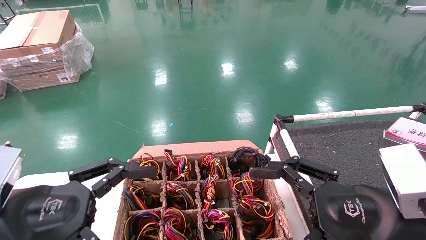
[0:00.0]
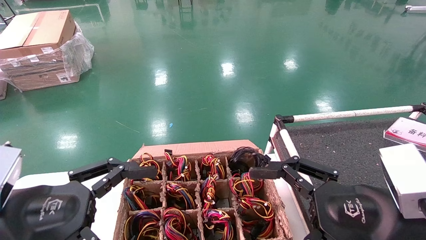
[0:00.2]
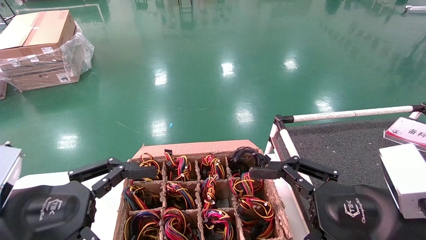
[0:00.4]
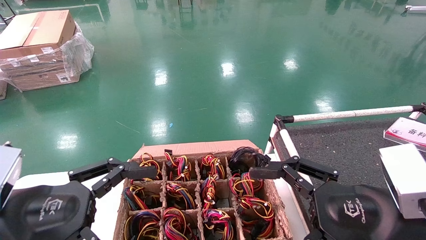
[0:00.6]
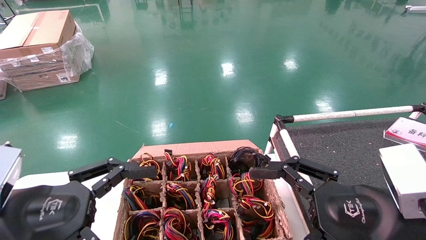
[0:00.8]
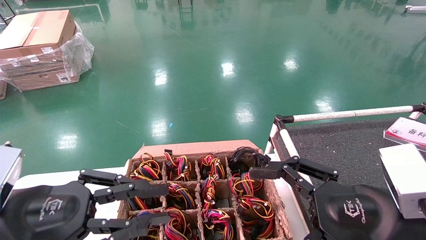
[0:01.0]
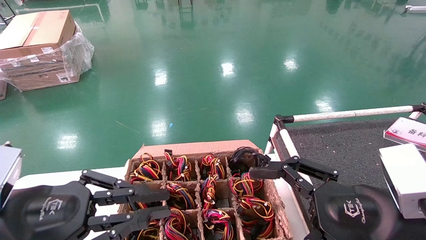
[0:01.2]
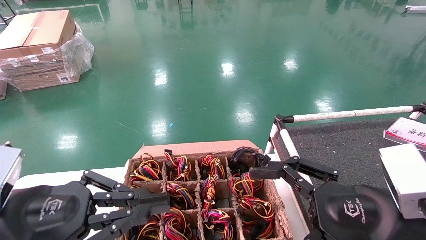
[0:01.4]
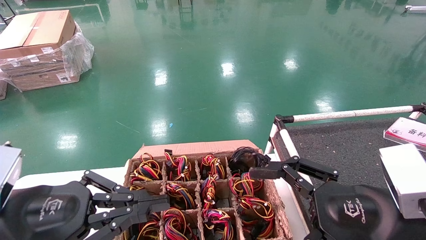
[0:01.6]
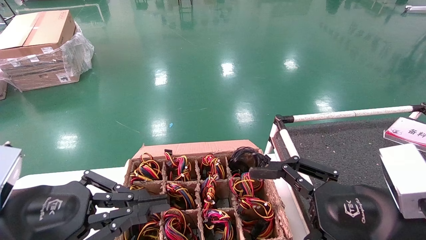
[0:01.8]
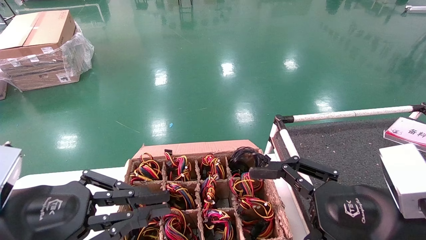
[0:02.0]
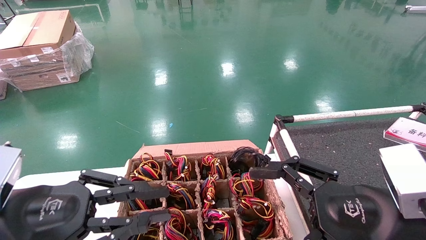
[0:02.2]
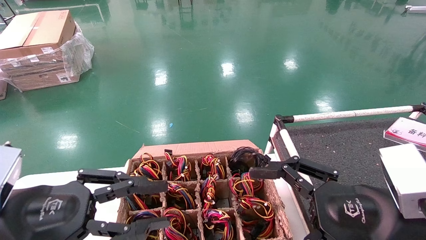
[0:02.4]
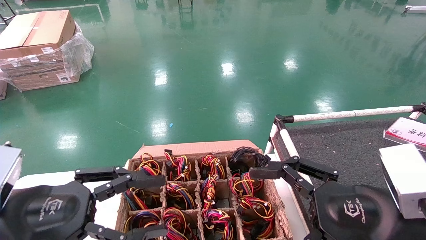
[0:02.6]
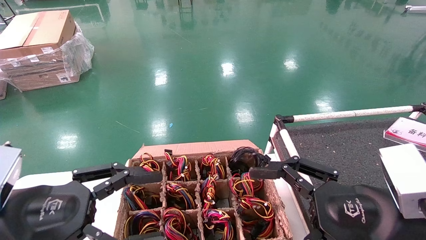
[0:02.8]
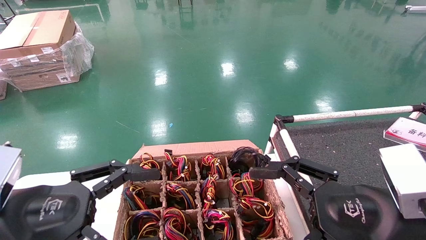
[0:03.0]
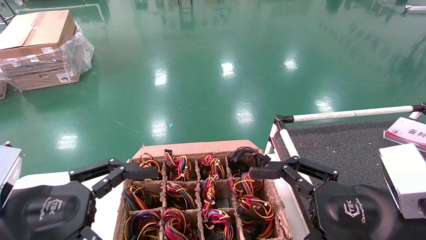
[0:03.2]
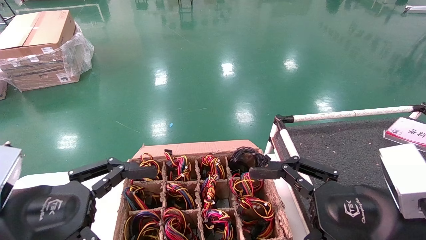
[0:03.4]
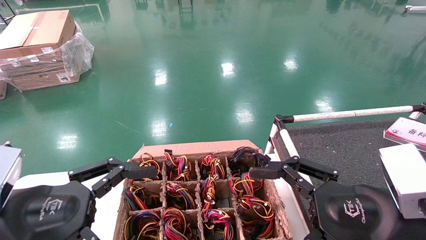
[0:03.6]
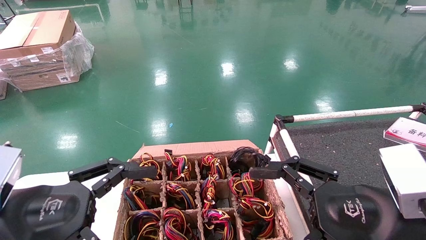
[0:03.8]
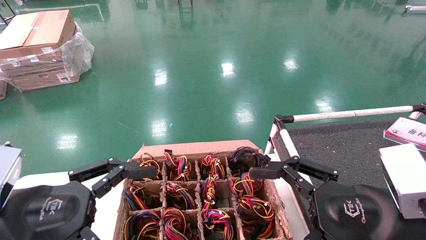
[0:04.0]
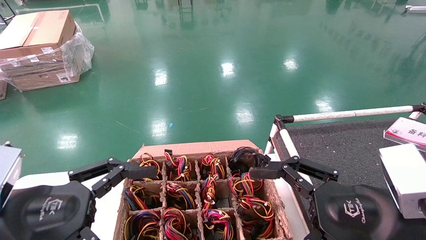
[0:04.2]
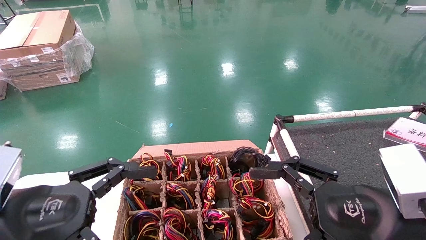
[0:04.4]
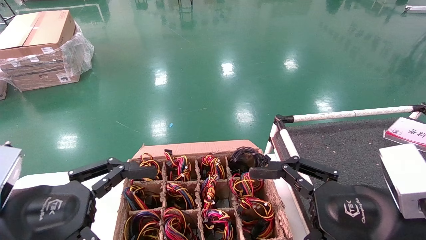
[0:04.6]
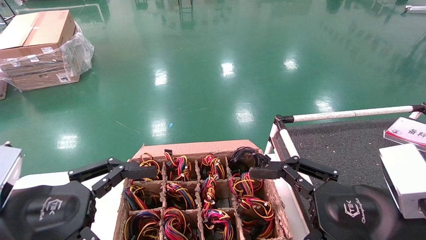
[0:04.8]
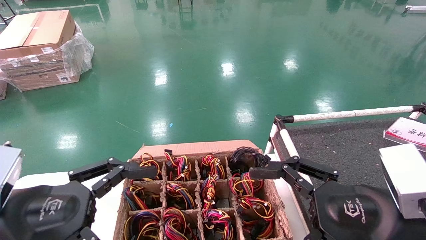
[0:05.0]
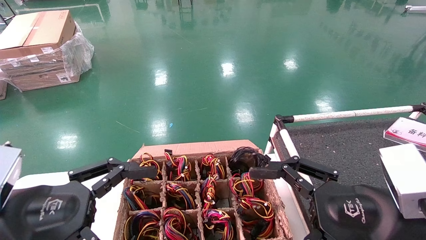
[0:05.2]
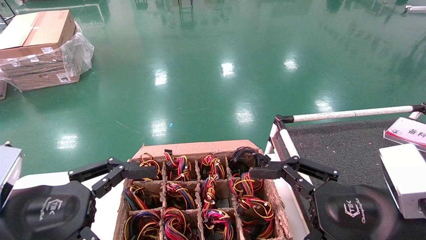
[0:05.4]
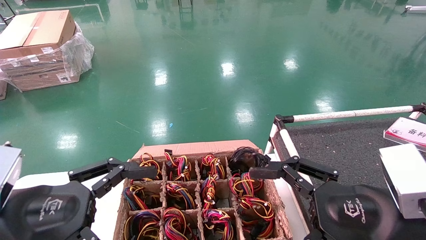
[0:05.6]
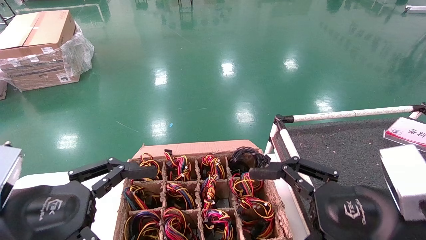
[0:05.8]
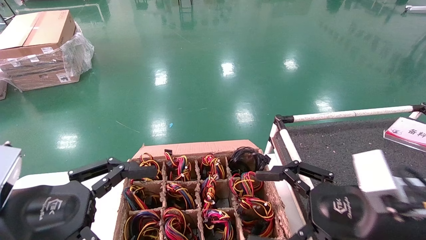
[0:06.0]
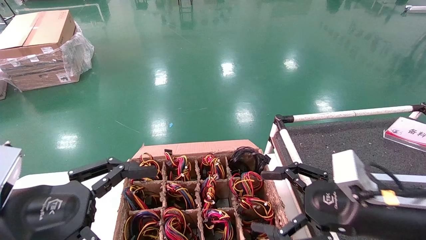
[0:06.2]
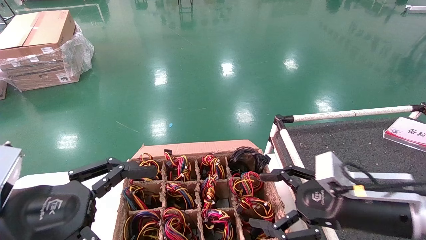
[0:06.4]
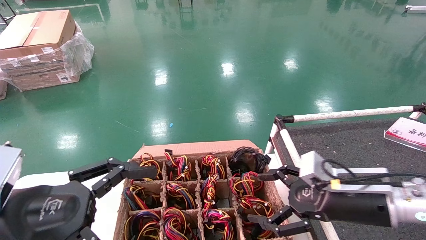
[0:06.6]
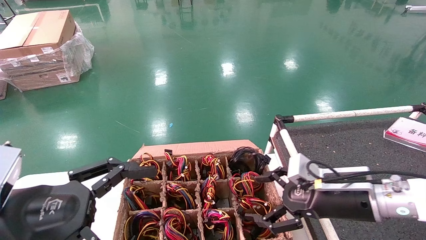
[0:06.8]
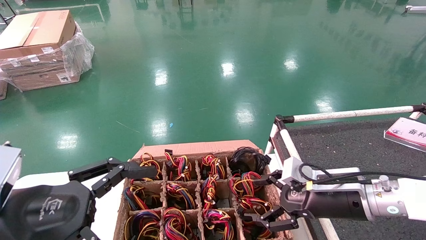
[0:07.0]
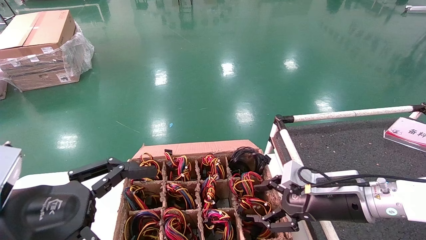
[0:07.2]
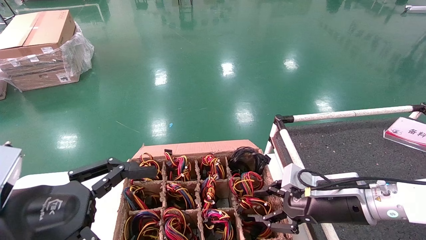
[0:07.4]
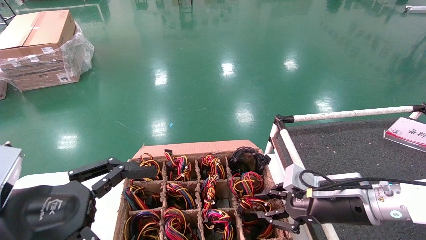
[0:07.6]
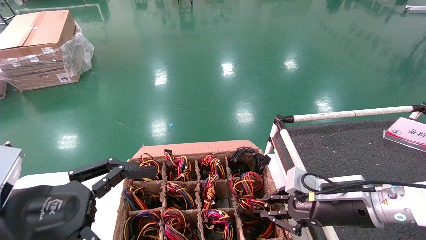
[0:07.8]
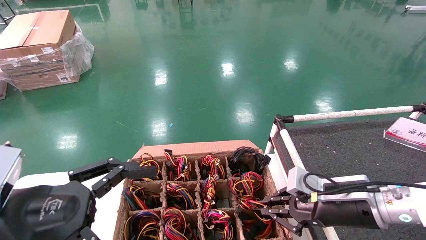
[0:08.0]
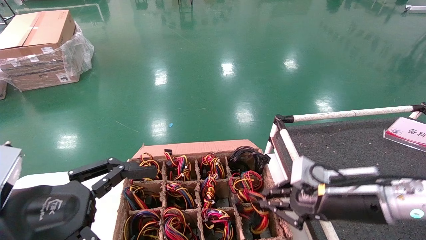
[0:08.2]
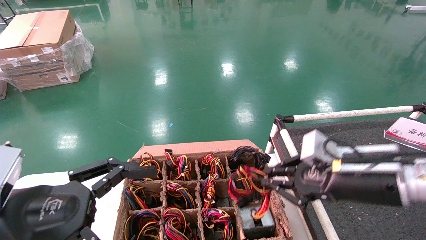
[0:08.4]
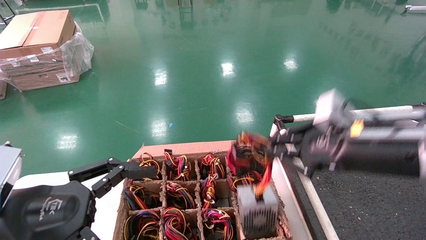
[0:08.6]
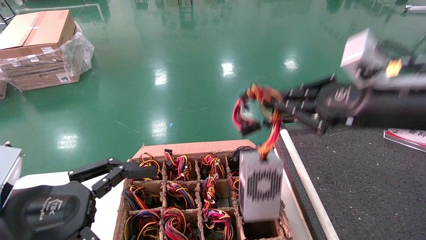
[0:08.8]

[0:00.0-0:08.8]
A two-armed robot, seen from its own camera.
Step, 0:08.4 to 0:08.8: Grab and lift the power supply from the large box.
0:00.0 to 0:03.0: Neither gripper changes place.
0:03.0 to 0:04.4: The left gripper closes up.
0:05.8 to 0:07.4: Neither gripper changes place.
0:07.4 to 0:08.8: The right gripper shifts approximately 10 cm forward.
